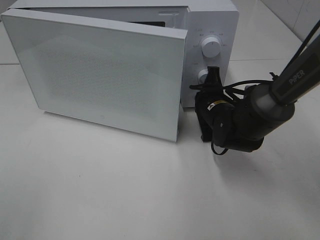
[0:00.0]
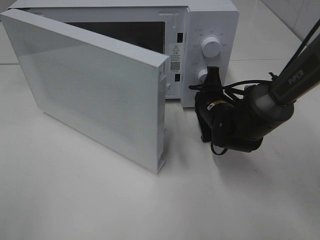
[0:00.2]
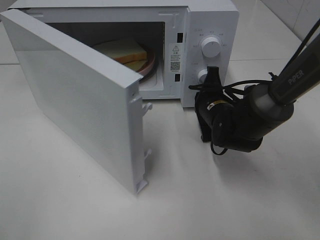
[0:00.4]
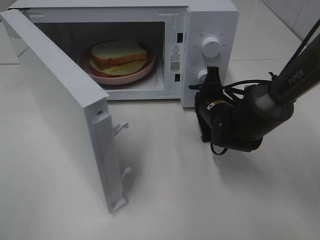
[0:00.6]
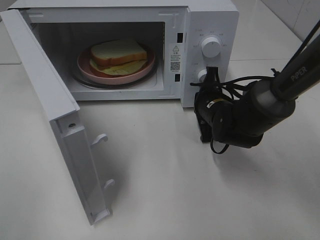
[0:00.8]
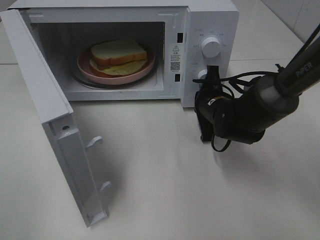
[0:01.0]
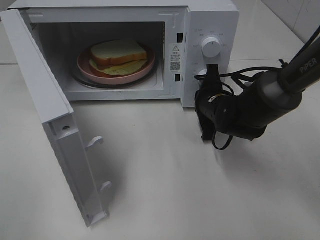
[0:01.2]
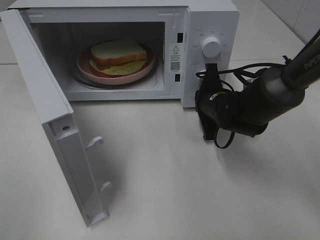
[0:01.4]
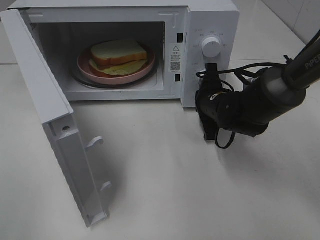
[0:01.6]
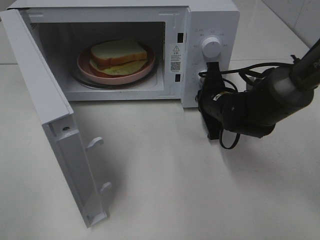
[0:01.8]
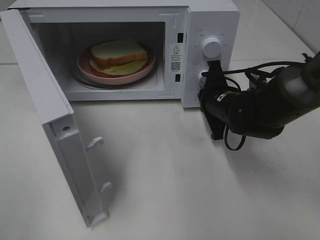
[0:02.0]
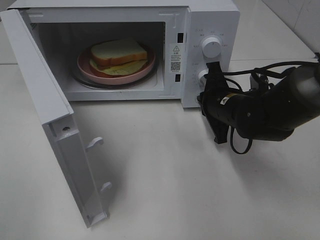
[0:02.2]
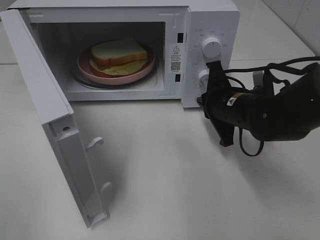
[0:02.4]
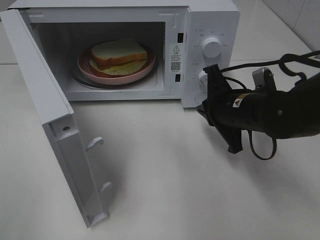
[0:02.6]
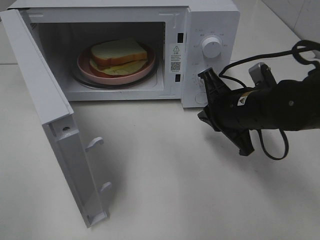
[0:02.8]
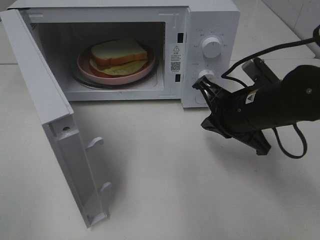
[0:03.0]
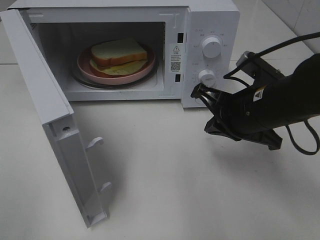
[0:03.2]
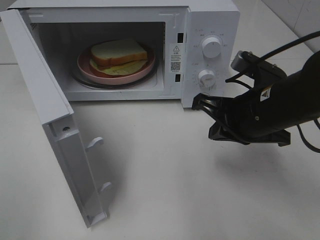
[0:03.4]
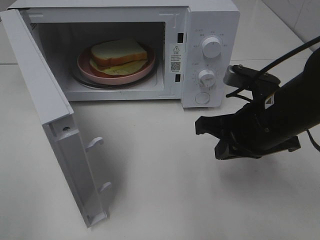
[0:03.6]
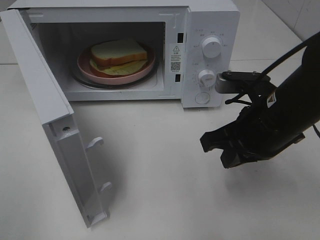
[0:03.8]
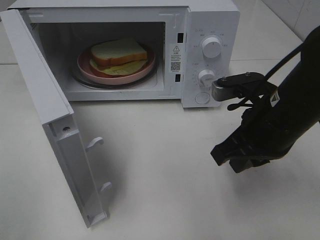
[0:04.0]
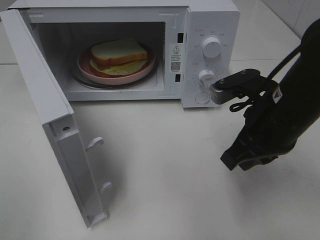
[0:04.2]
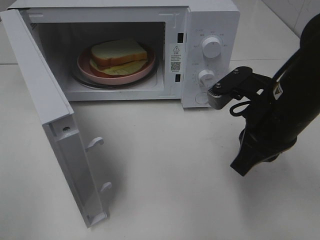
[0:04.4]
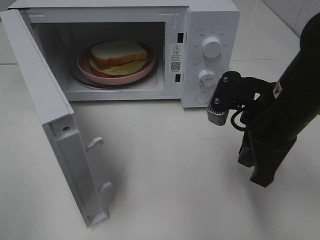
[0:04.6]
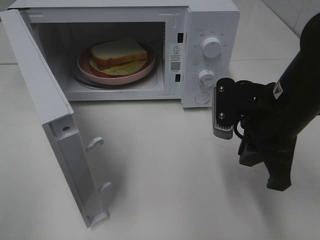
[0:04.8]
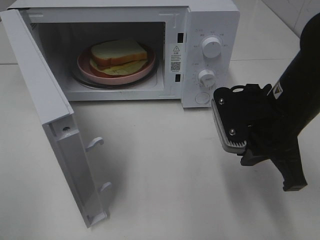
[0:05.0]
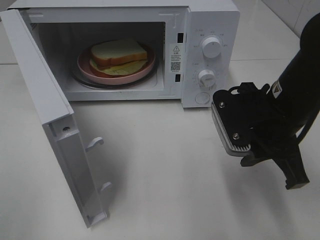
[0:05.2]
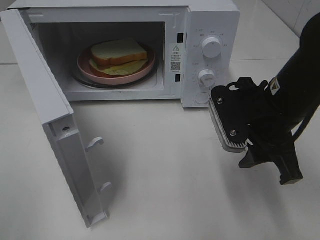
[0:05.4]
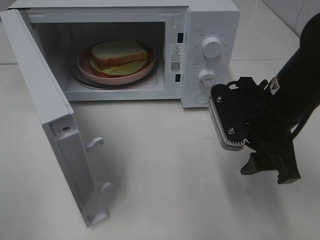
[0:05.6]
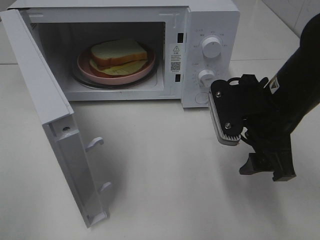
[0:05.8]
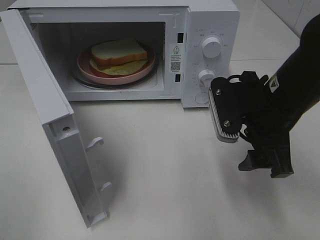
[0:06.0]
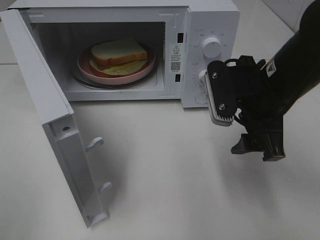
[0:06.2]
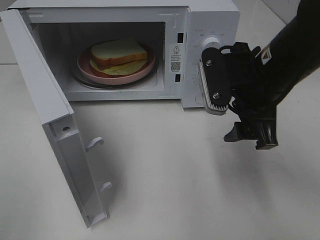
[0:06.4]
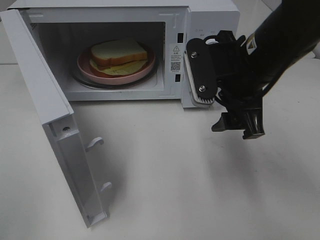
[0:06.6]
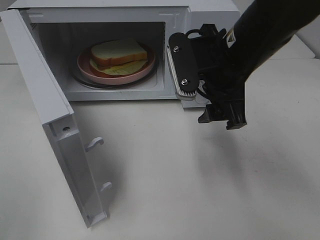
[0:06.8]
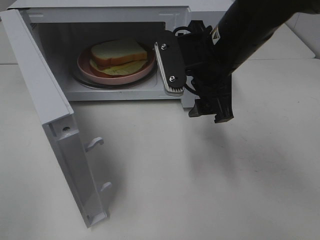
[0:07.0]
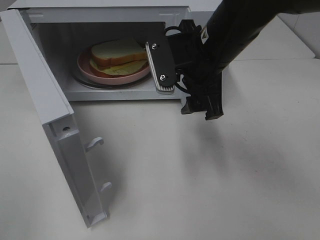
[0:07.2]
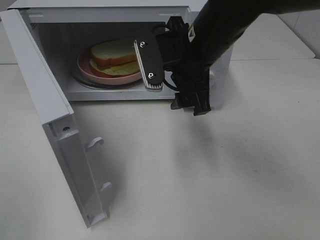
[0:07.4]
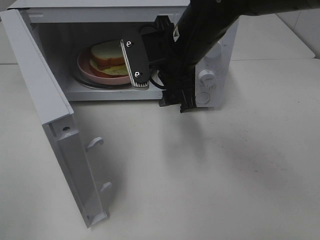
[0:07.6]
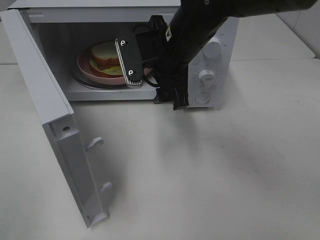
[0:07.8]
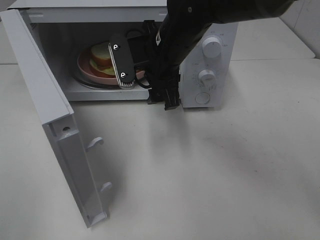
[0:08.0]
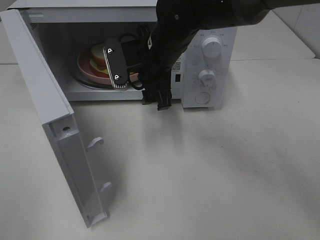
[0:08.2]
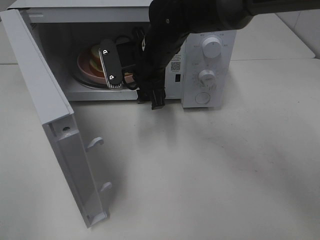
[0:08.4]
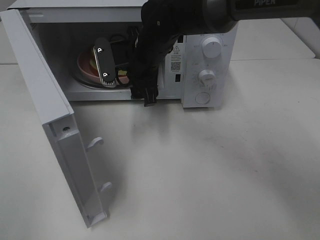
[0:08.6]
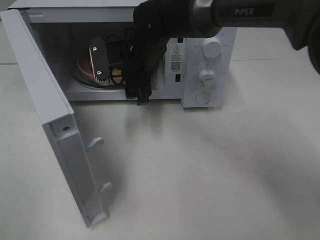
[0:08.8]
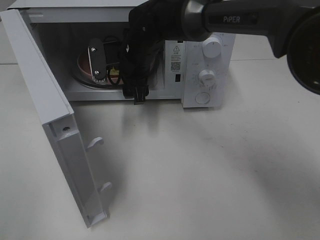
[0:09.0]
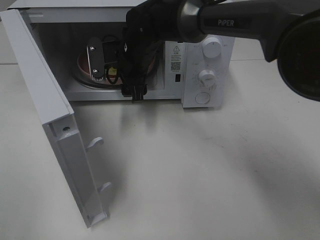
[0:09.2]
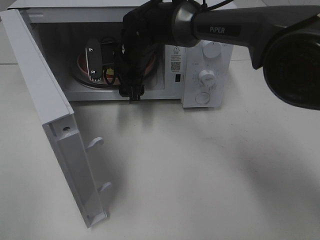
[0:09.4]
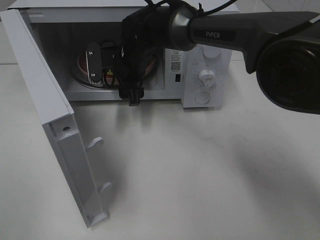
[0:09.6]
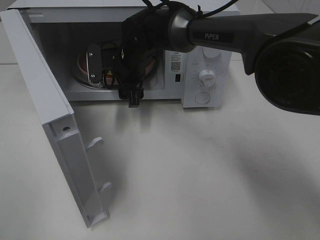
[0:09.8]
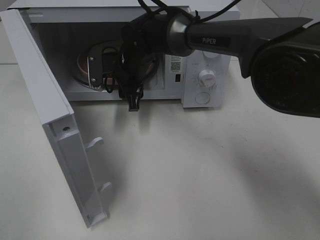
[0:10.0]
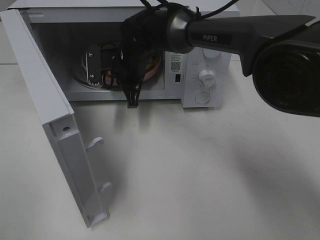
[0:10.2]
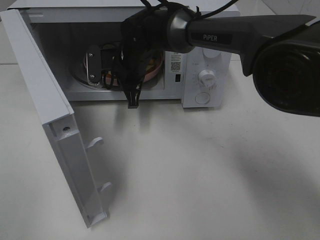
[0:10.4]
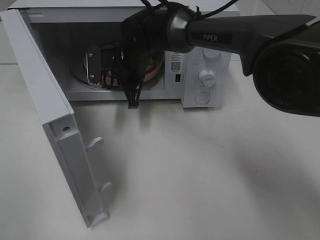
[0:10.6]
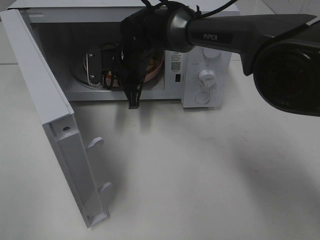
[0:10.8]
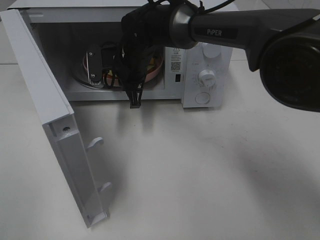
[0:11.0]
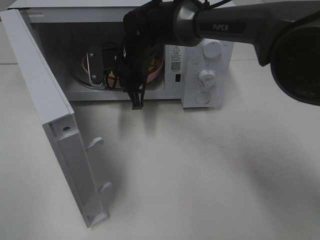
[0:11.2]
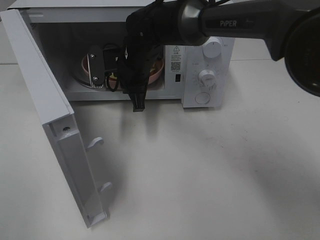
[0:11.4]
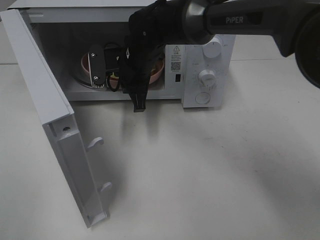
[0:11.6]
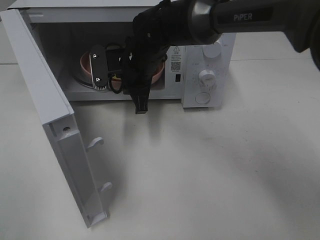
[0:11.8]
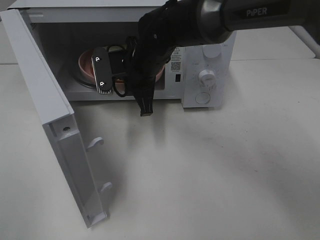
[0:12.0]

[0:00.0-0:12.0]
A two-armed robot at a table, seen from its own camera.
Task of the whole recording: Heat Sandwich.
Step, 0:00.0 to 0:02.4: Right hand: press the switch.
Step, 0:02.6 to 0:11.0: Right hand: grab the plate with the sandwich.
0:01.6 to 0:03.0: The right gripper shifts some 10 cm backward and upward.
0:03.0 to 0:04.4: The right gripper shifts by approximately 5 cm.
0:04.4 to 0:06.0: The right gripper opens up.
0:06.0 to 0:07.6: The right gripper moves to the left and forward, about 15 cm.
0:07.6 to 0:09.0: The right gripper shifts some 15 cm forward, to the left and downward.
0:09.0 to 0:10.4: The right gripper closes.
0:10.4 to 0:12.0: The right gripper goes about 5 cm backward.

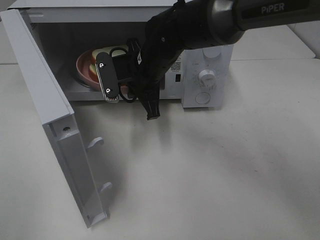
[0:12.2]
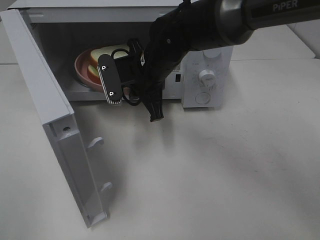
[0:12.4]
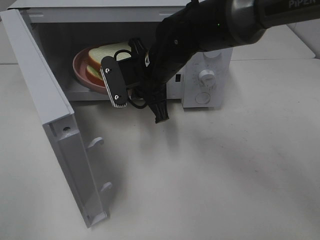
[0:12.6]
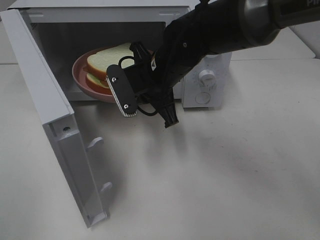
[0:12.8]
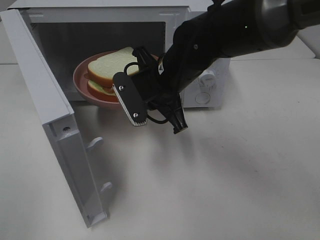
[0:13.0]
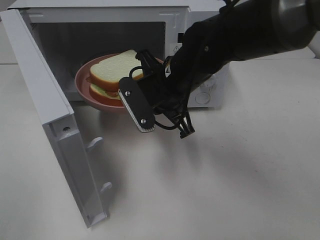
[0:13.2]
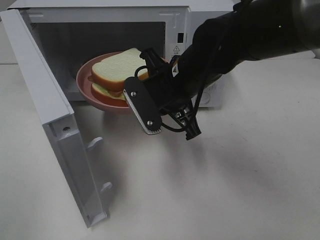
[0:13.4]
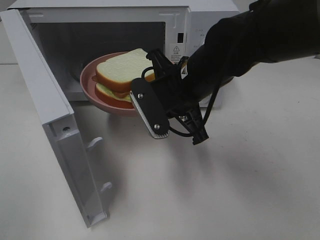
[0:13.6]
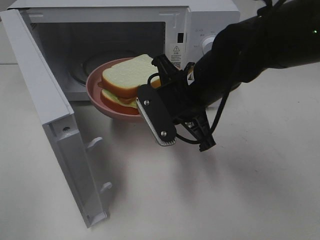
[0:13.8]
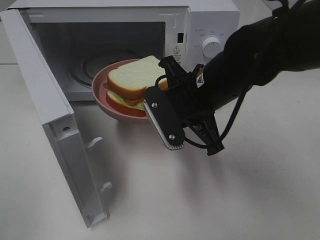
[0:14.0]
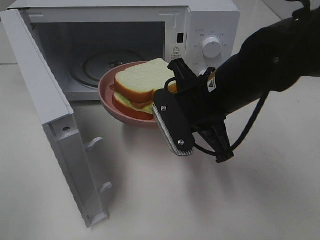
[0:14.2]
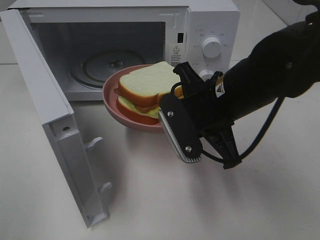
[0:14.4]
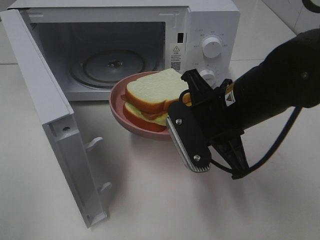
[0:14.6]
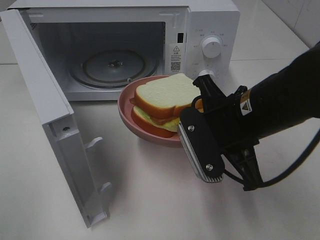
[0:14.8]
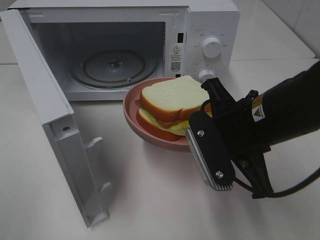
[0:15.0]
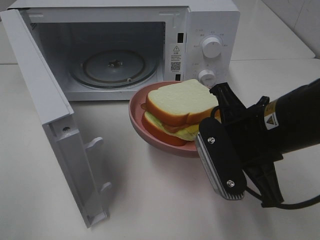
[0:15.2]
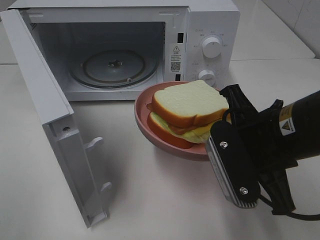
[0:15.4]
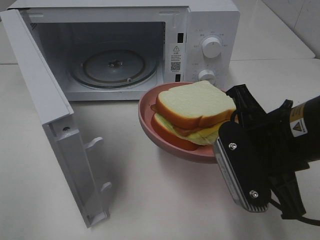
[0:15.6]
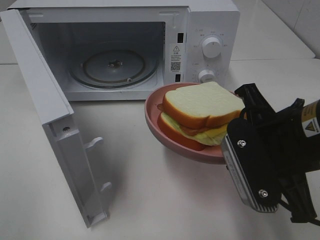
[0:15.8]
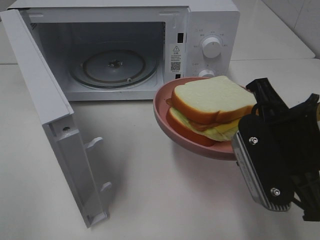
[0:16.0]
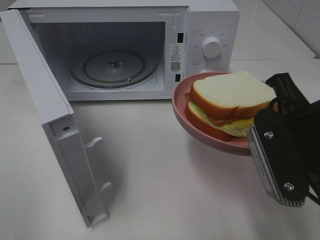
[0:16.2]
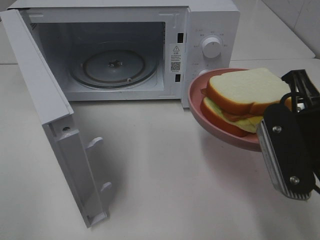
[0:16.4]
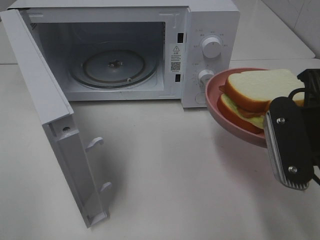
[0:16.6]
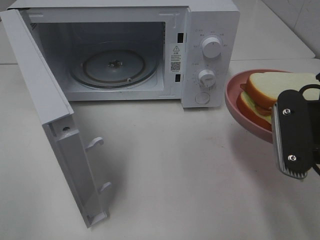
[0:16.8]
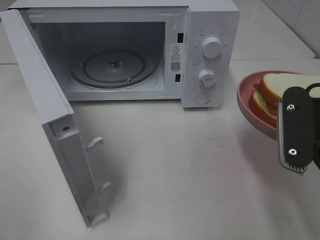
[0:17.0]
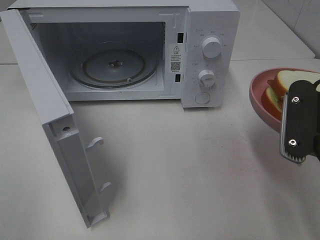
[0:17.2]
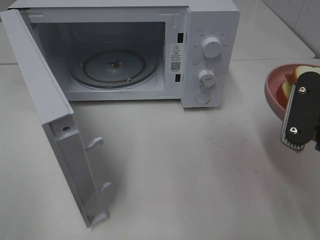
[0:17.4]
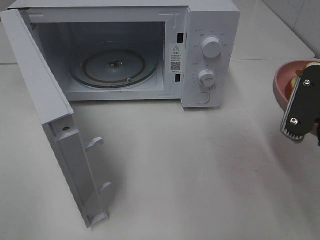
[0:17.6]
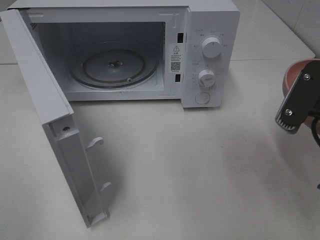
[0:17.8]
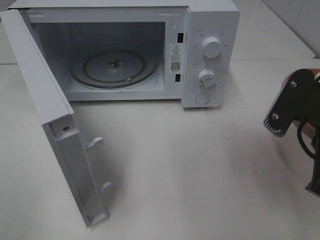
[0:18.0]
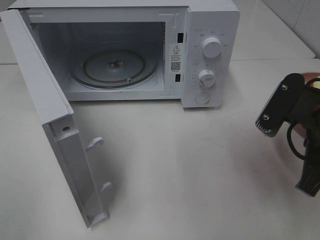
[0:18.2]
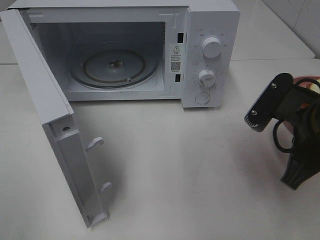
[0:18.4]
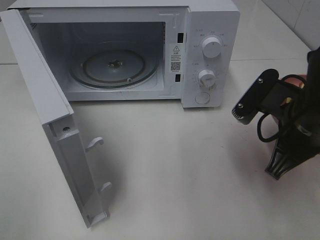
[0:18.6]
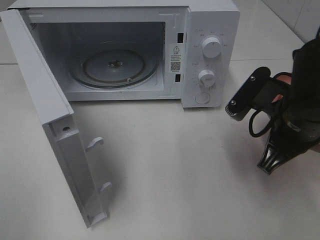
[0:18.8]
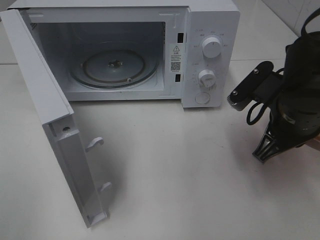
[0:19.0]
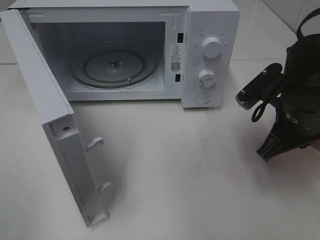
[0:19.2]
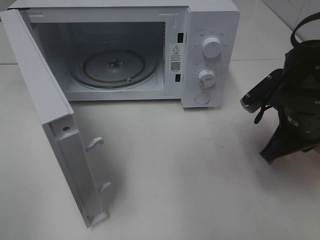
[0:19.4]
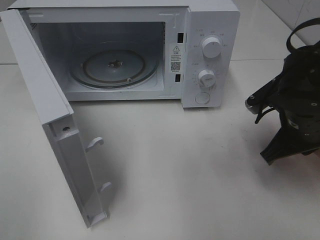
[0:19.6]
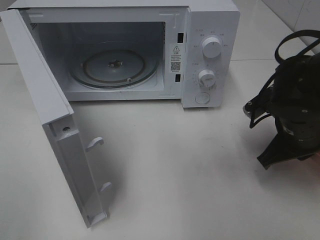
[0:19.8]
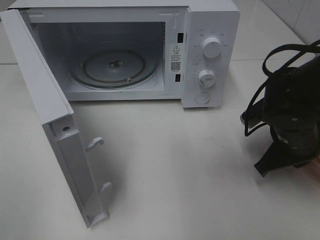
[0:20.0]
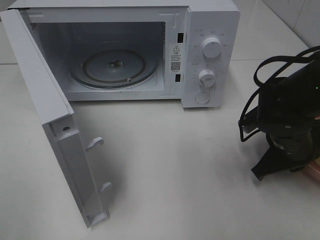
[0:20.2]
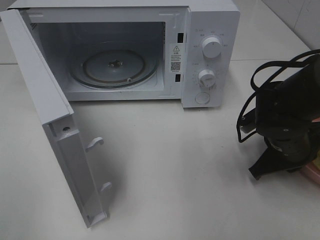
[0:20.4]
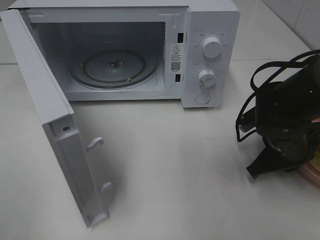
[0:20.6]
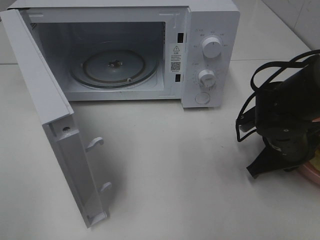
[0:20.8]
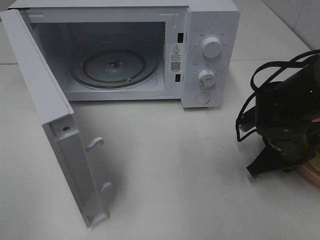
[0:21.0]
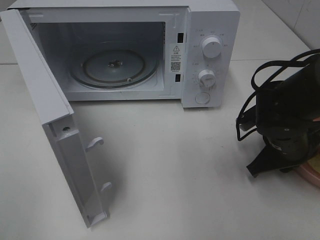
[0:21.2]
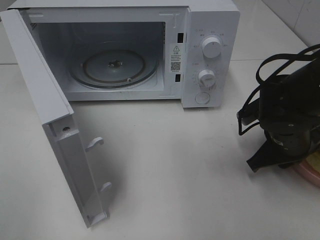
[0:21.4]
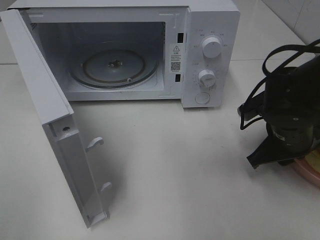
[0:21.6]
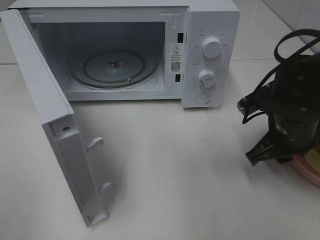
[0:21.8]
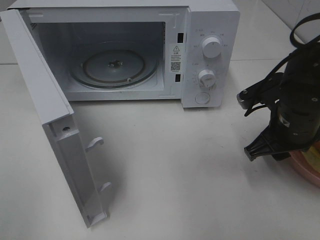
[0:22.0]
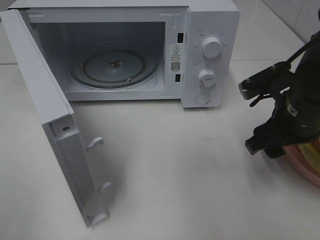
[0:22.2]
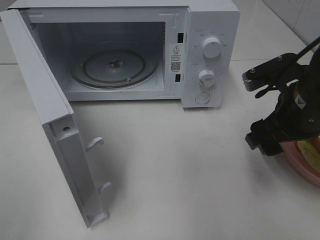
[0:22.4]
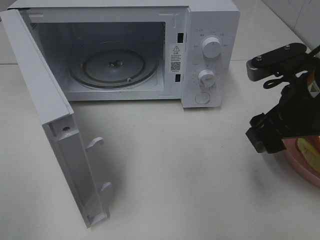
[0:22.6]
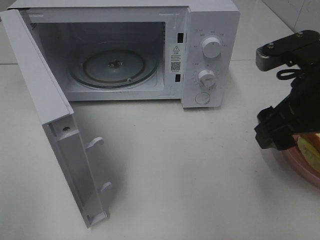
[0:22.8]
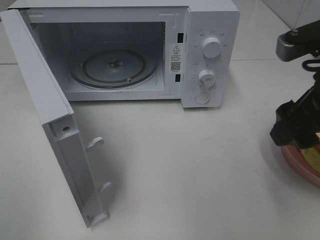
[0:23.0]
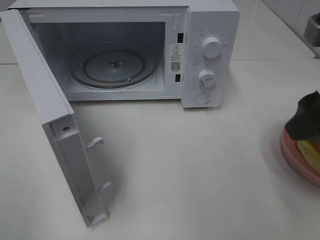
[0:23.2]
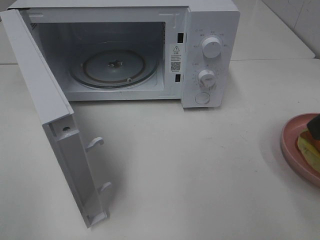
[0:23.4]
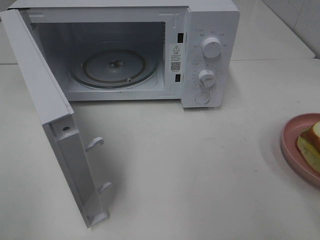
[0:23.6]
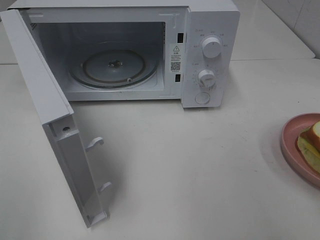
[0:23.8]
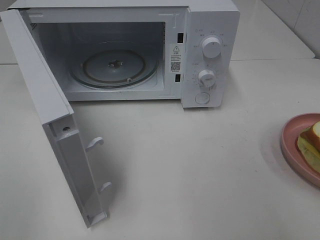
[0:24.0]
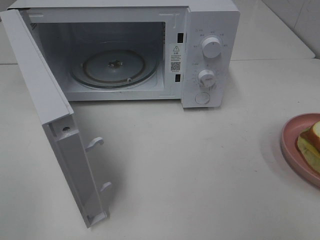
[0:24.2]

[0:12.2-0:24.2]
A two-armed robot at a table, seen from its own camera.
Task of the whole recording: Heat Sandwich.
Step, 0:12.2 to 0:22.8: Right hand: place the plate on the table.
0:12.2 to 0:13.8: The right gripper travels backward and to the right by about 10 cm.
0:13.8 to 0:15.2: The right gripper goes roughly 10 cm backward and to the right.
0:15.2 to 0:16.6: The right gripper moves to the right, about 5 cm.
0:18.2 to 0:19.8: The right gripper heads forward and downward, covering approximately 10 cm.
0:19.8 to 0:21.2: The grippers make only small movements.
0:21.2 to 0:22.6: The right gripper shifts some 15 cm upward, and opens.
0:22.6 to 0:24.2: The right gripper is displaced backward, to the right and upward by approximately 20 cm.
